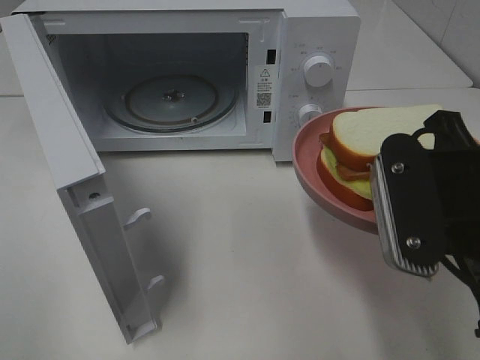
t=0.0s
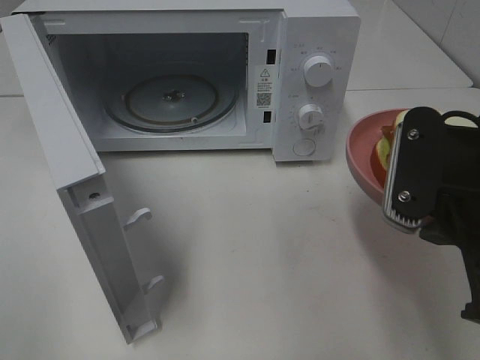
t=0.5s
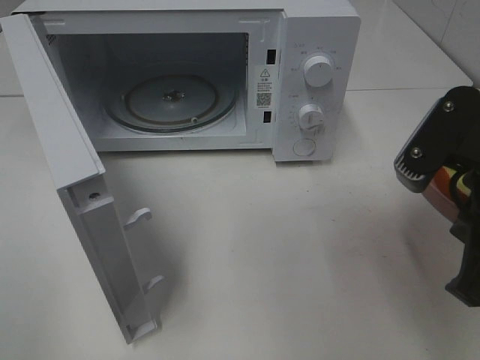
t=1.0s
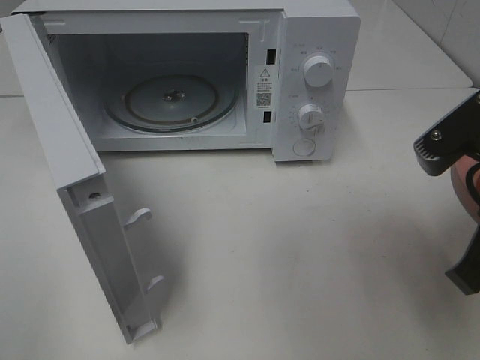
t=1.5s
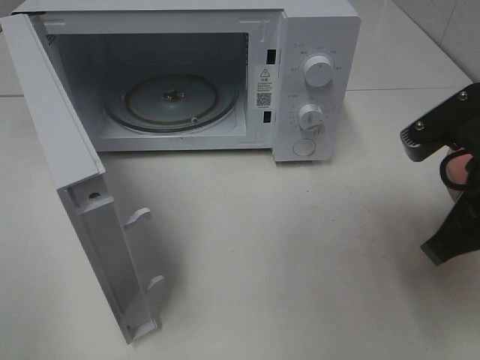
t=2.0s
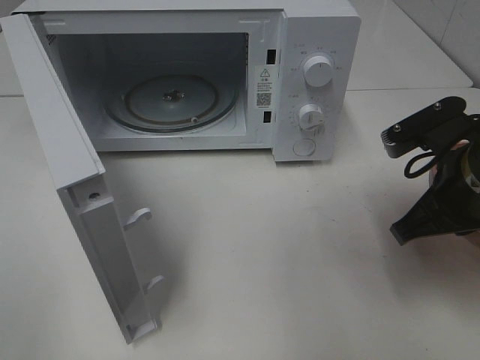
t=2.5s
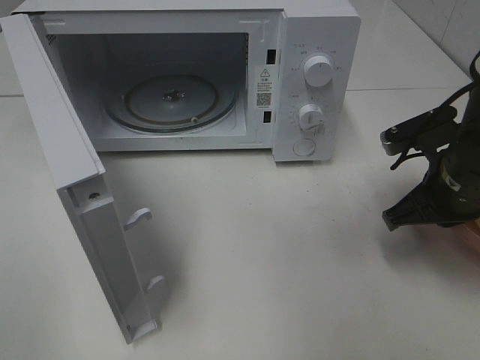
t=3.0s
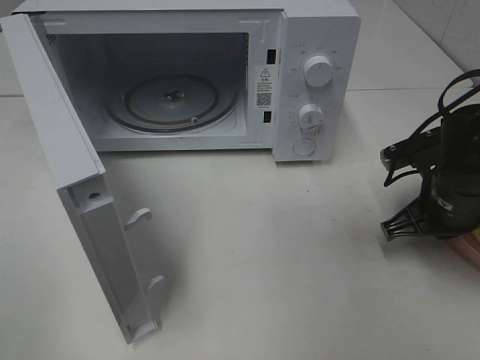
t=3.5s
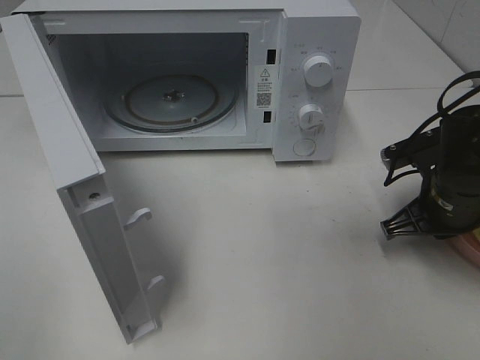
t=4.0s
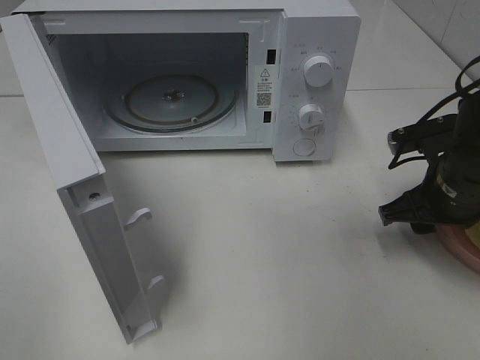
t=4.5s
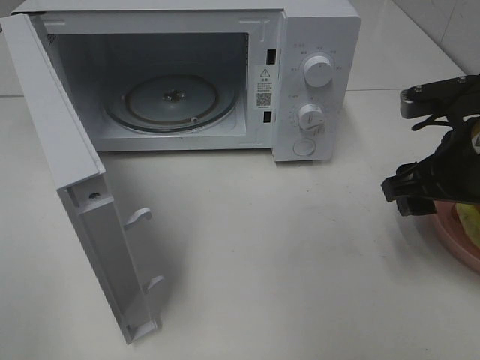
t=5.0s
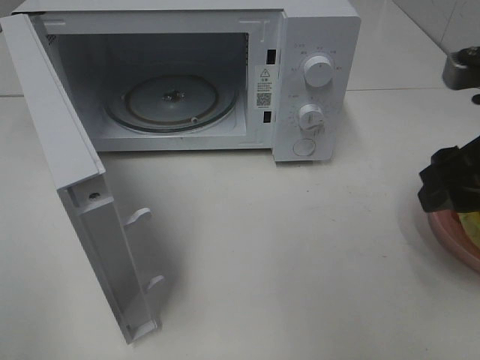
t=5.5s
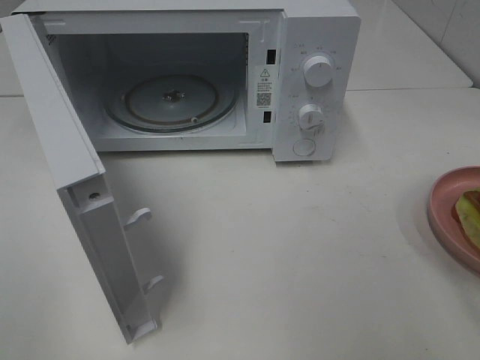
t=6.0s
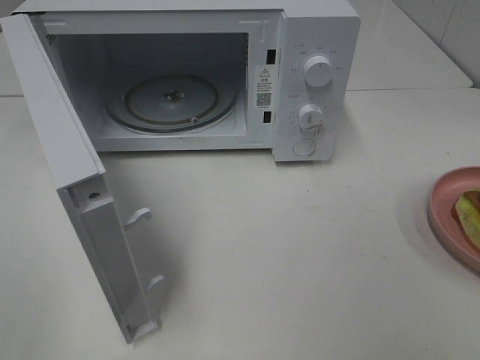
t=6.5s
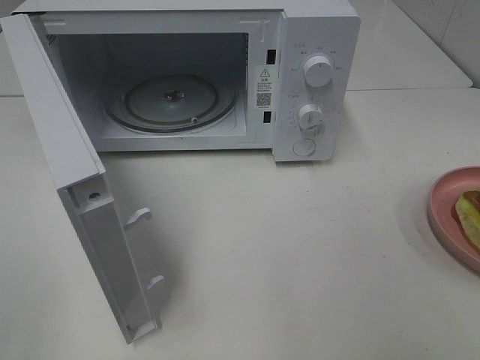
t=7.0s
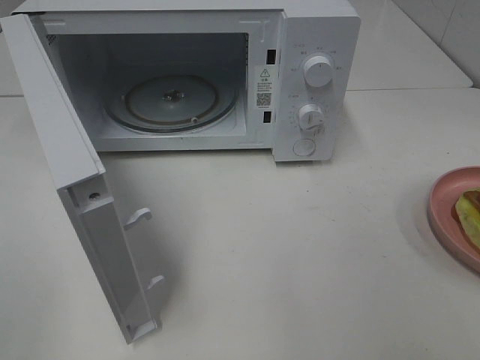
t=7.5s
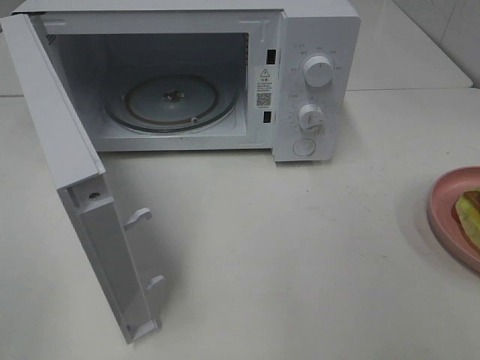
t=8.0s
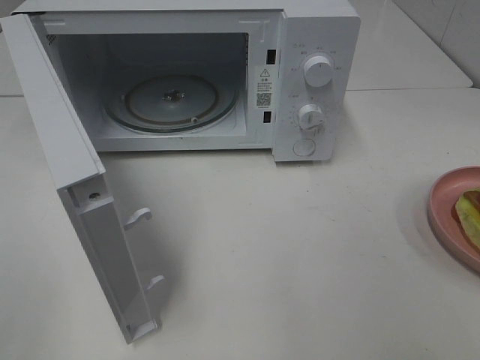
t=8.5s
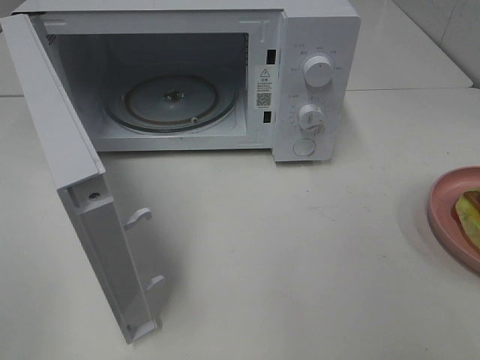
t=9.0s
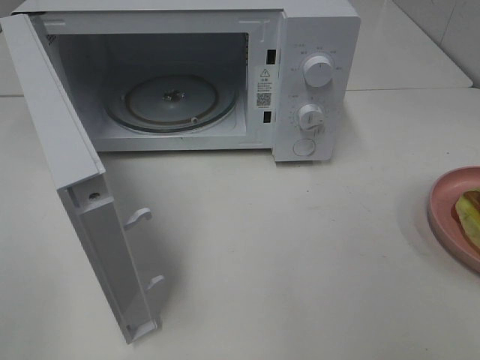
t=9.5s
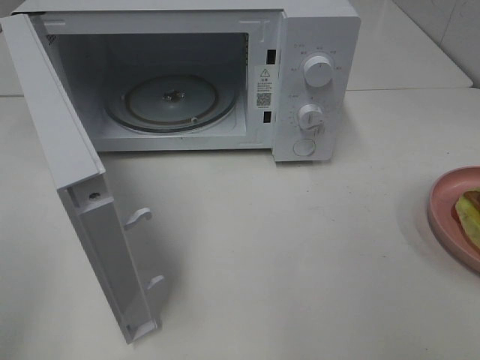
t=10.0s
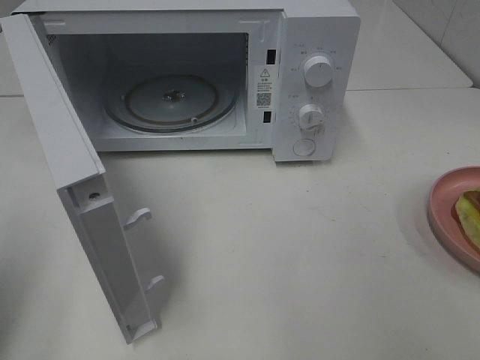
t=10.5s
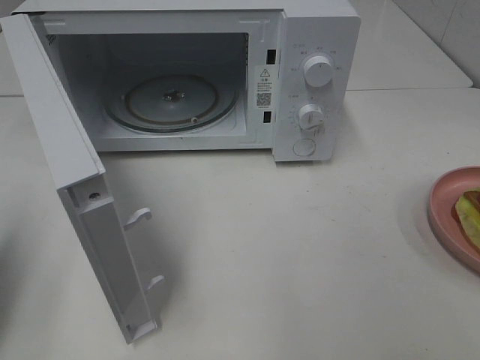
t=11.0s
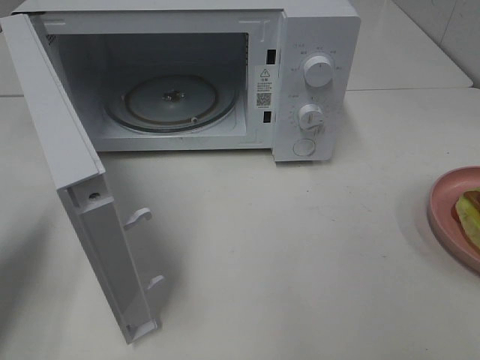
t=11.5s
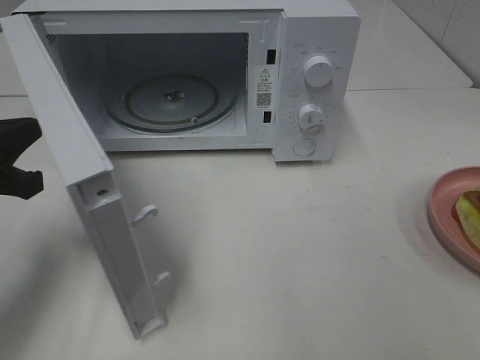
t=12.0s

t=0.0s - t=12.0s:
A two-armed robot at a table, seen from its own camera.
Task of the whole recording: Heat Sandwich.
Step, t=0.0s - t=4.5s: Right hand: place the plate on the table.
t=0.0s - t=2.0s: The right gripper ends up roughly 5 cm from where it was.
t=2.0s - t=4.0s: The right gripper heads downward and forward, covering roughly 15 cm.
t=4.0s - t=6.0s: The right gripper moves upward and backward, roughly 25 cm, and opens its fingers.
t=10.0s - t=12.0s: The left gripper heads forward and downward, covering some 20 cm, and closes.

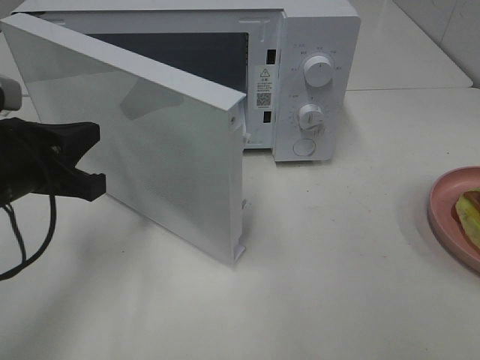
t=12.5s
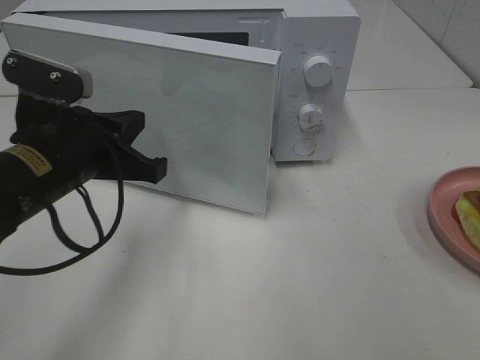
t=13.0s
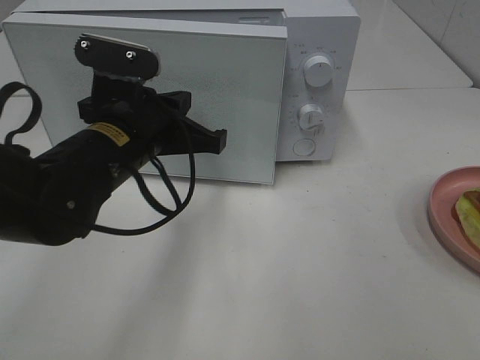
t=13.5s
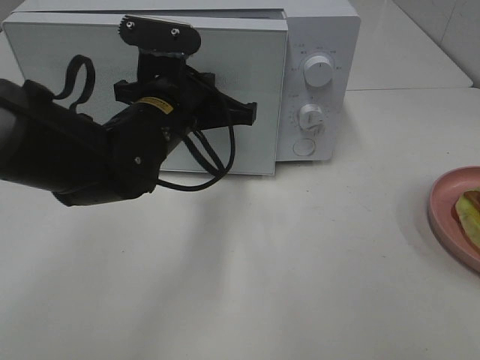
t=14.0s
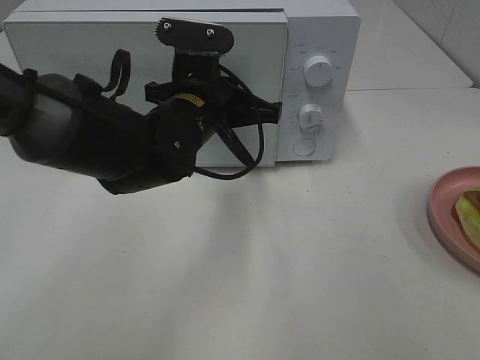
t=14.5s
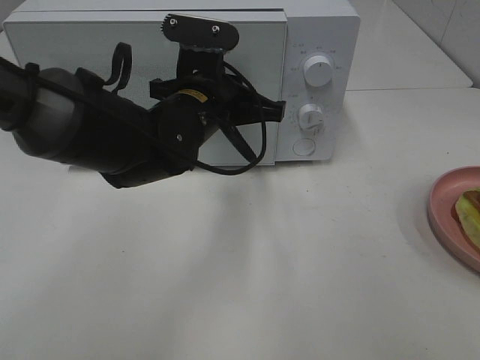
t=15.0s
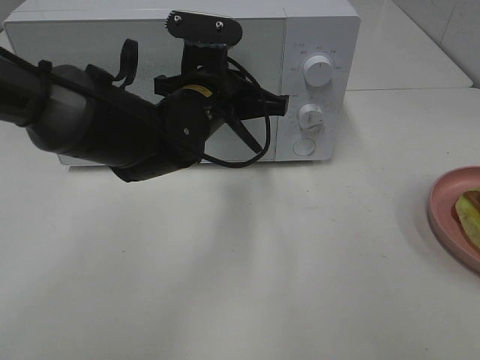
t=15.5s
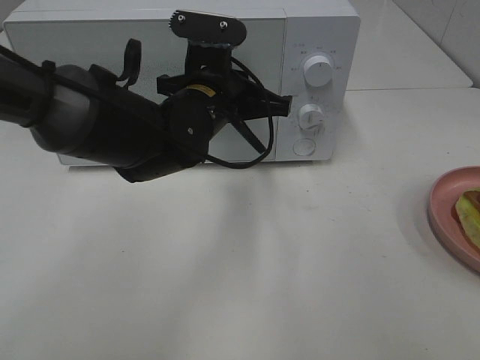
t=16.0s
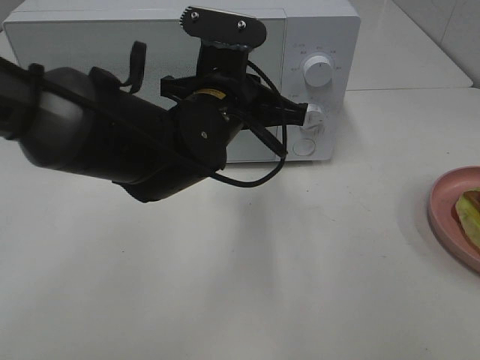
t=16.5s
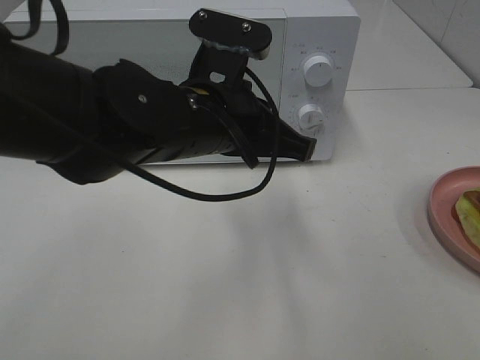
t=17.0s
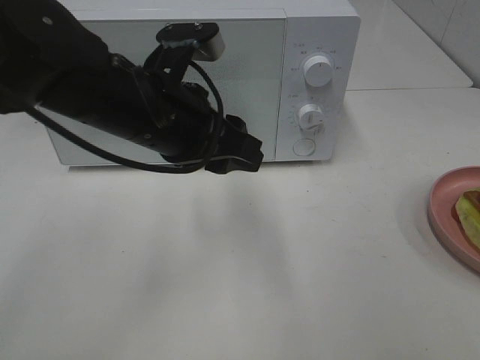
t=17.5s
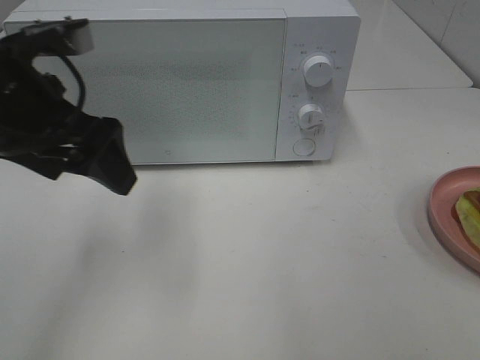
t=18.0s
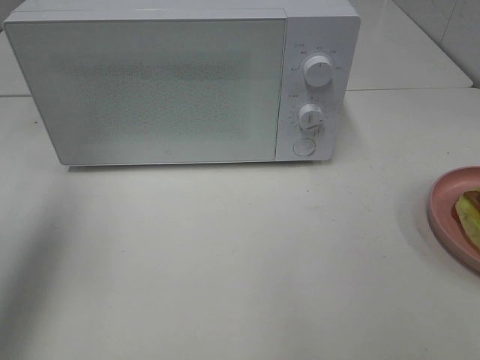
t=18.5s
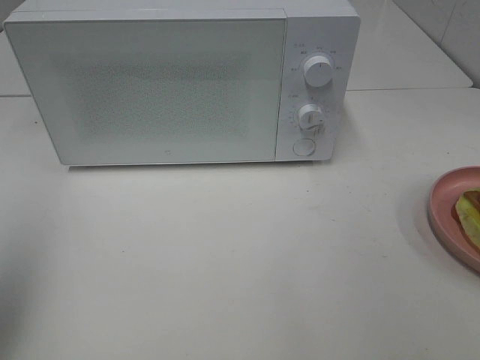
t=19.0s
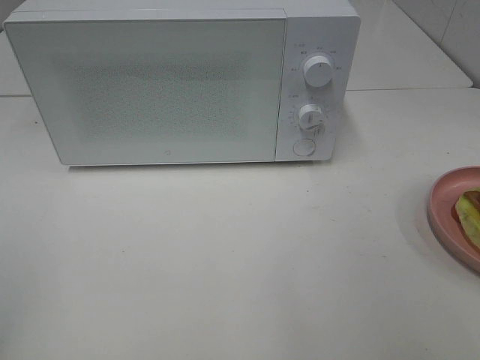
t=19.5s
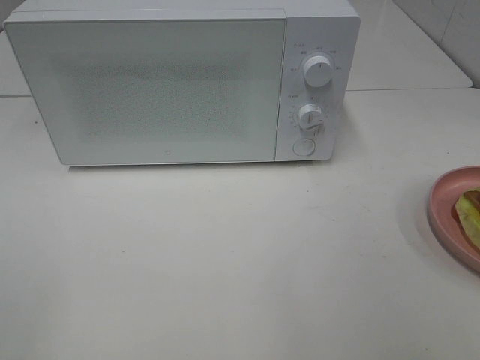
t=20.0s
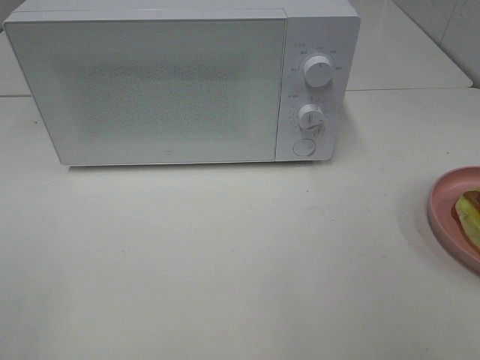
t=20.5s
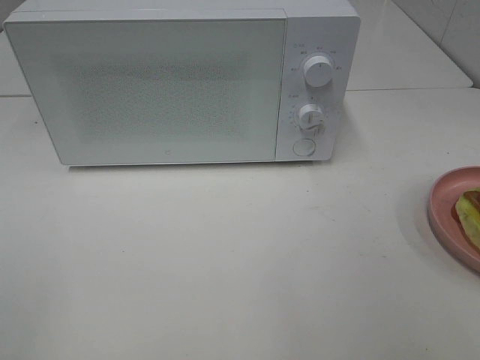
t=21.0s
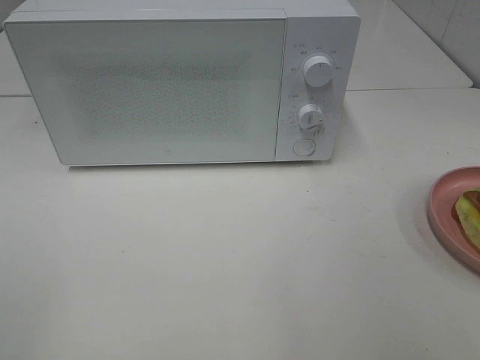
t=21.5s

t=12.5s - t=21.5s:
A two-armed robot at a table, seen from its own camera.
Task of the whole recording: Heat Sandwich.
Step, t=12.5s - t=16.5s: Left hand: close the microwave door.
t=12.5s - t=14.5s: The left gripper shifts roughly 20 cm to the right and forward.
t=14.5s - t=17.0s: The left gripper is displaced backward by approximately 5 cm.
t=17.0s - t=19.5s: The left gripper travels to the left and backward by roughly 40 cm, and opens up.

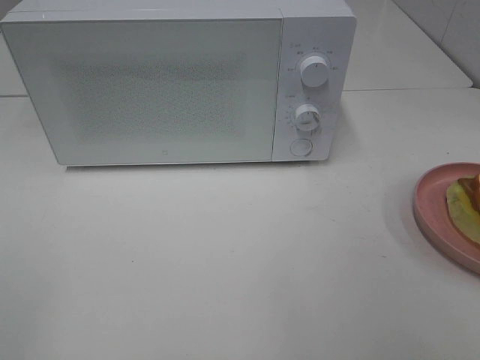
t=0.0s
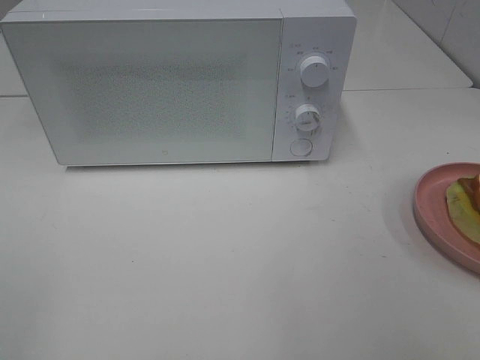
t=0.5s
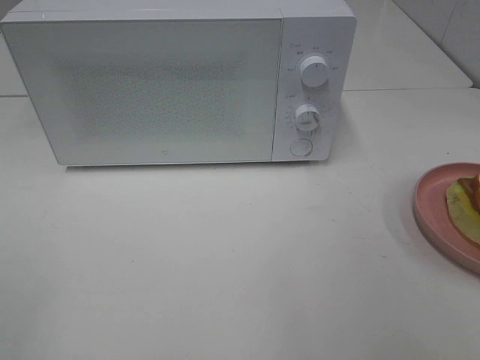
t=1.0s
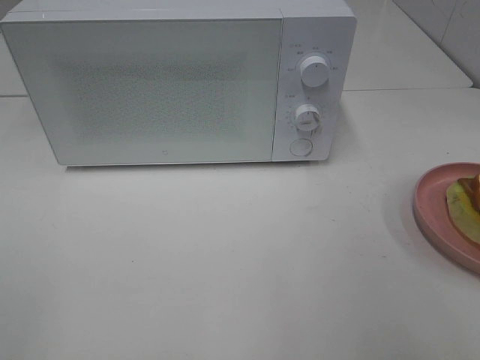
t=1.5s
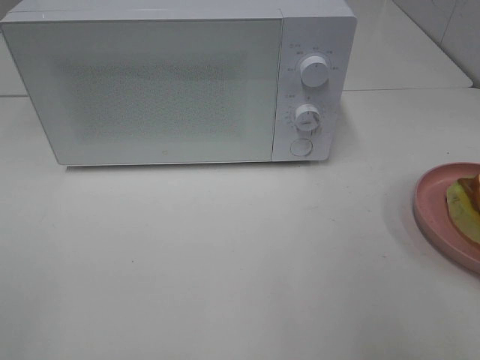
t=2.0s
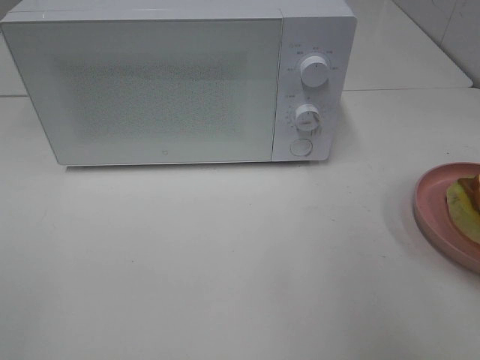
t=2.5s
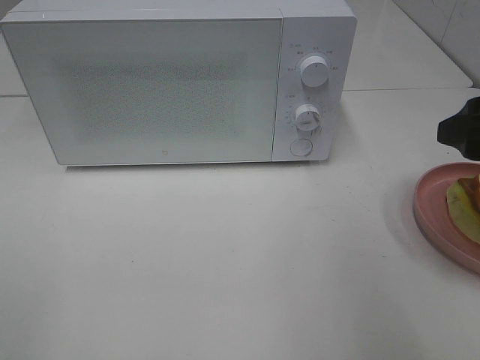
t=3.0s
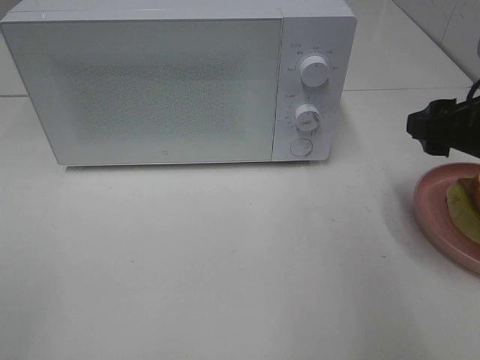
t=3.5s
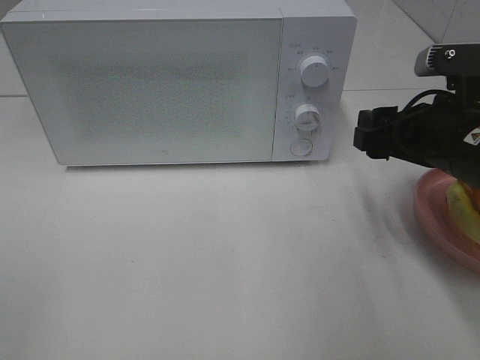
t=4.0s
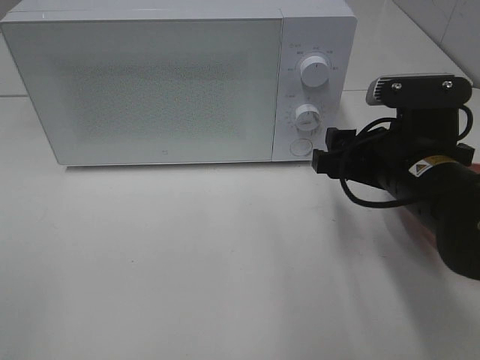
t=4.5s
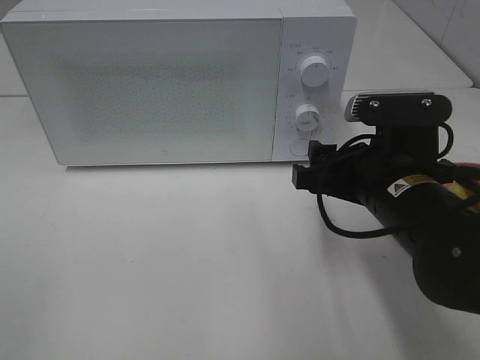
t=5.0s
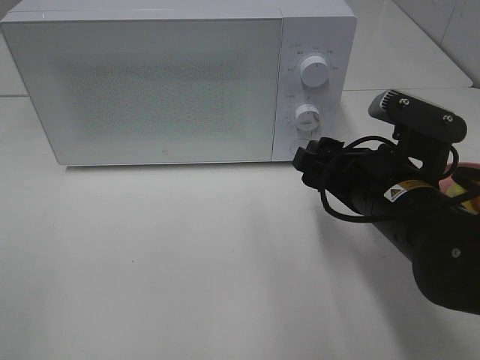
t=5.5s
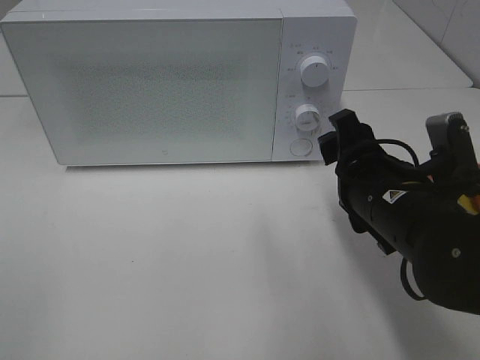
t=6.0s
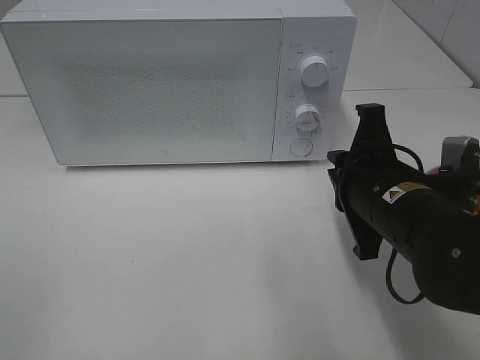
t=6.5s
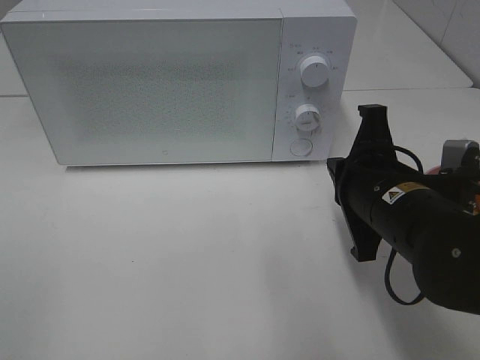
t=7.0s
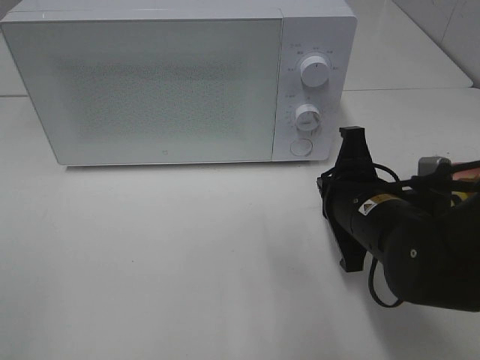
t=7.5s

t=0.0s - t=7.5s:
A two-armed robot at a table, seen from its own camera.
Task of the whole recording: Heat Sandwich.
t=2.0s - t=4.0s: The right gripper travels forward, downward and to the left by roughly 20 cm.
t=4.0s - t=5.5s: The right gripper moves to the left, approximately 5 cm.
t=5.5s - t=7.5s: The right gripper closes its fingers.
